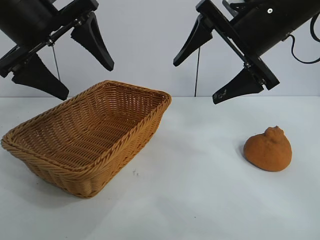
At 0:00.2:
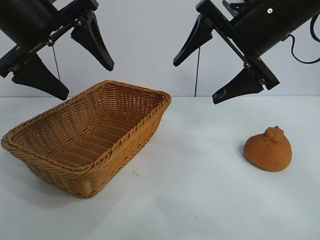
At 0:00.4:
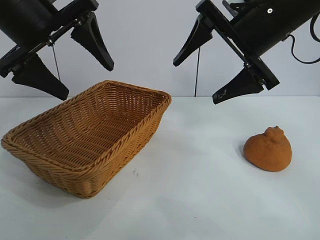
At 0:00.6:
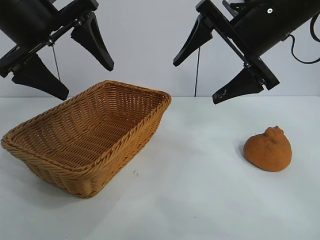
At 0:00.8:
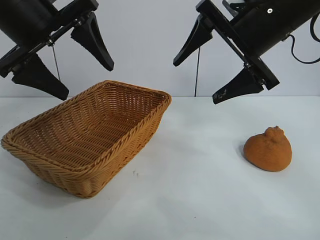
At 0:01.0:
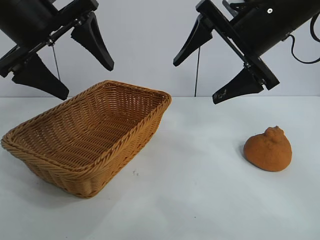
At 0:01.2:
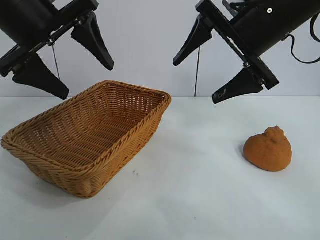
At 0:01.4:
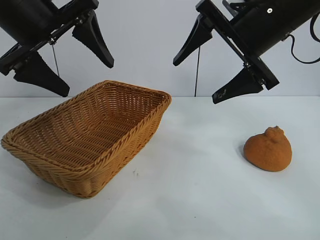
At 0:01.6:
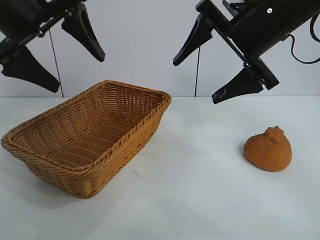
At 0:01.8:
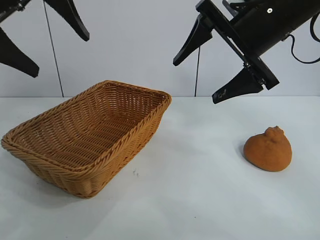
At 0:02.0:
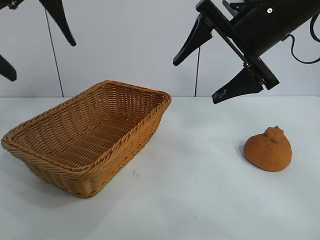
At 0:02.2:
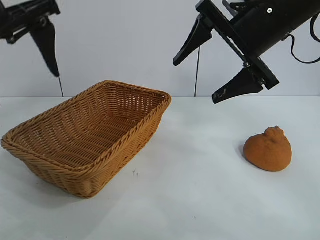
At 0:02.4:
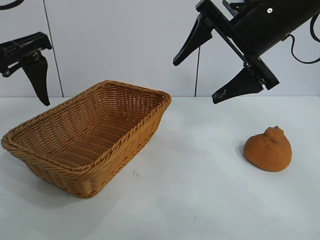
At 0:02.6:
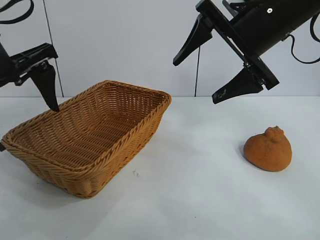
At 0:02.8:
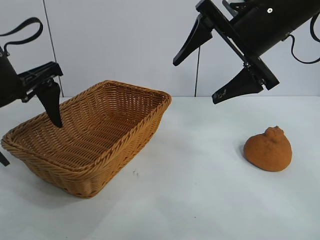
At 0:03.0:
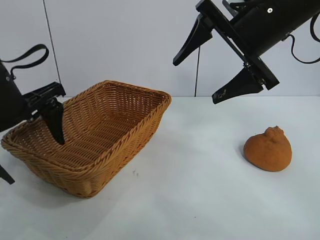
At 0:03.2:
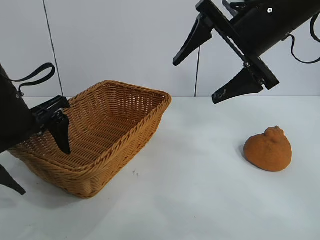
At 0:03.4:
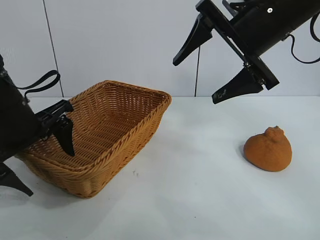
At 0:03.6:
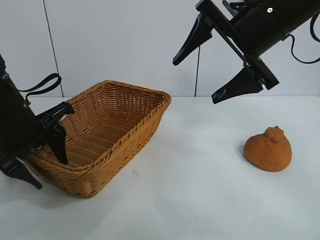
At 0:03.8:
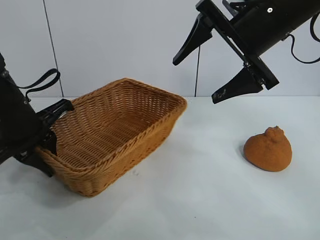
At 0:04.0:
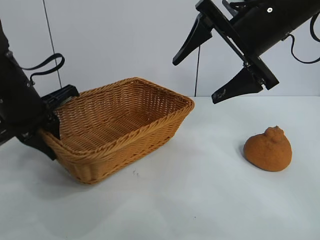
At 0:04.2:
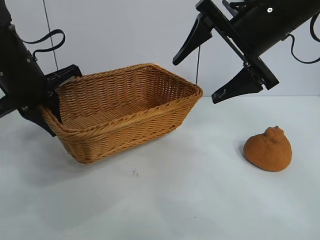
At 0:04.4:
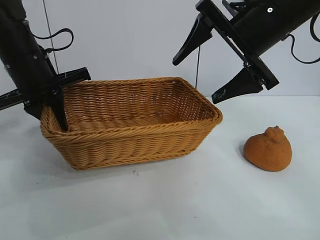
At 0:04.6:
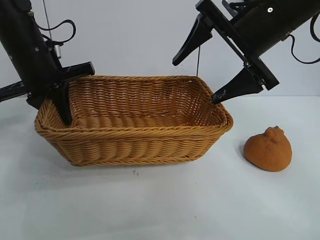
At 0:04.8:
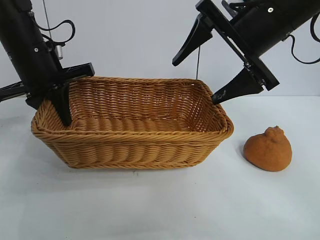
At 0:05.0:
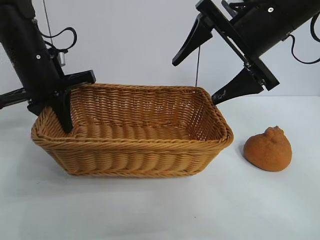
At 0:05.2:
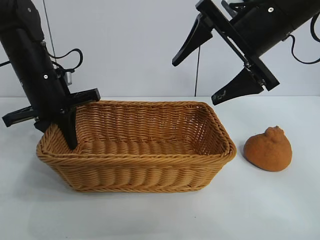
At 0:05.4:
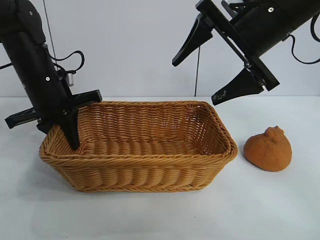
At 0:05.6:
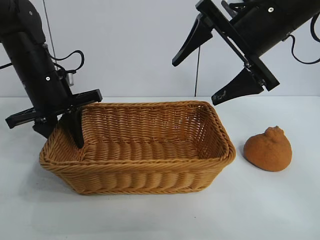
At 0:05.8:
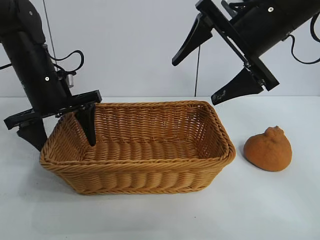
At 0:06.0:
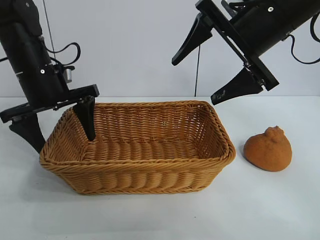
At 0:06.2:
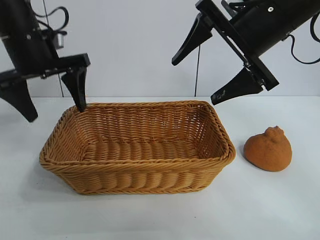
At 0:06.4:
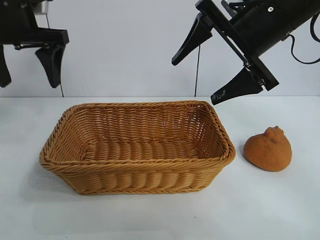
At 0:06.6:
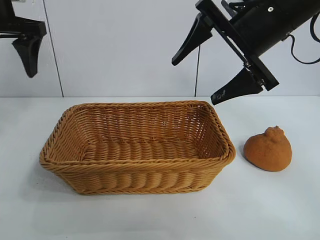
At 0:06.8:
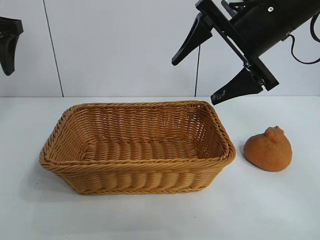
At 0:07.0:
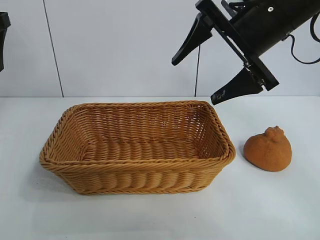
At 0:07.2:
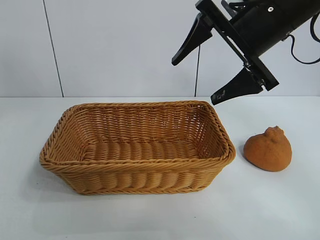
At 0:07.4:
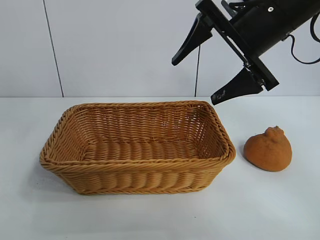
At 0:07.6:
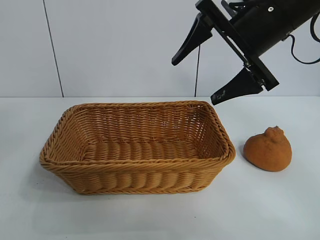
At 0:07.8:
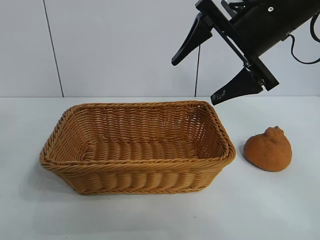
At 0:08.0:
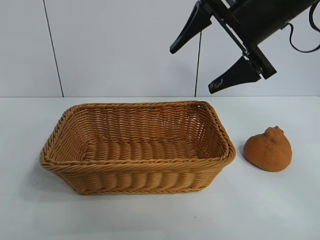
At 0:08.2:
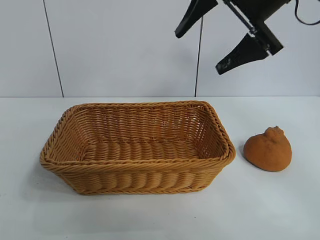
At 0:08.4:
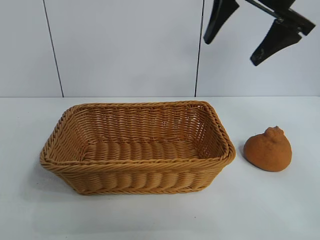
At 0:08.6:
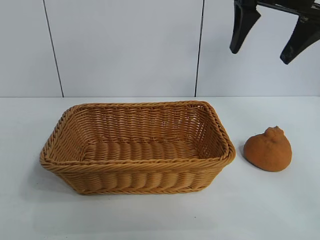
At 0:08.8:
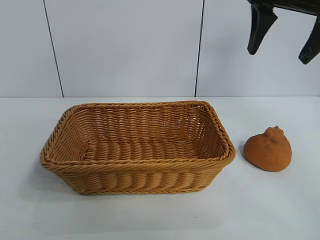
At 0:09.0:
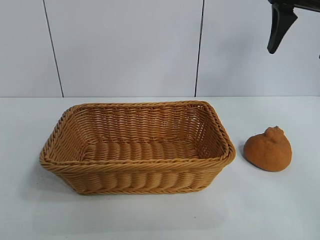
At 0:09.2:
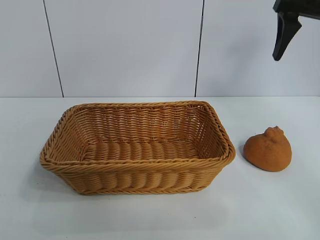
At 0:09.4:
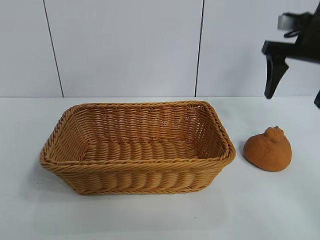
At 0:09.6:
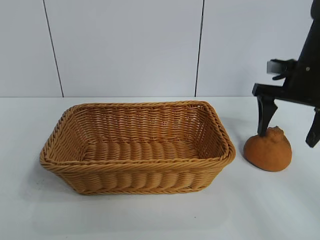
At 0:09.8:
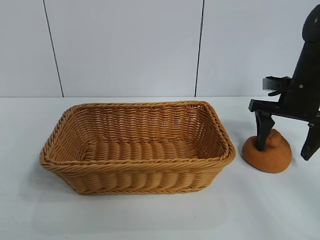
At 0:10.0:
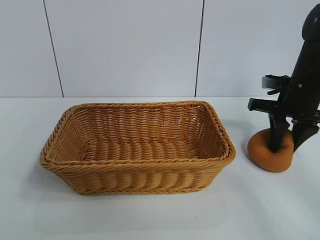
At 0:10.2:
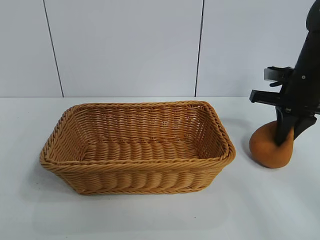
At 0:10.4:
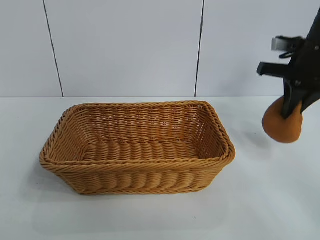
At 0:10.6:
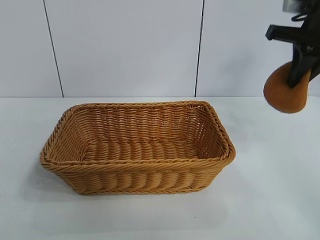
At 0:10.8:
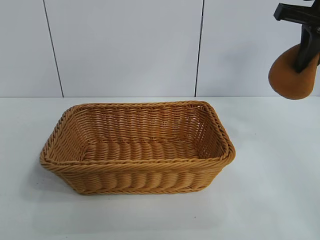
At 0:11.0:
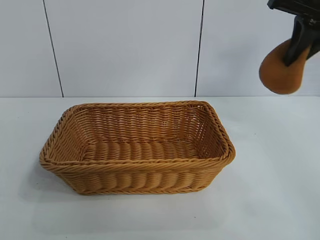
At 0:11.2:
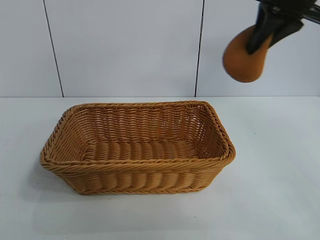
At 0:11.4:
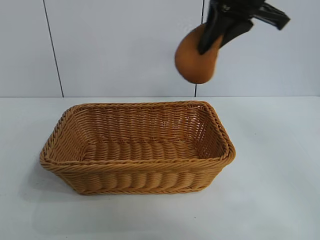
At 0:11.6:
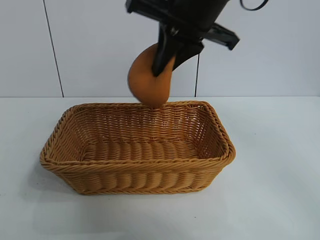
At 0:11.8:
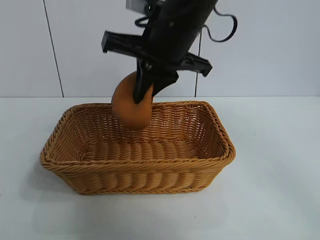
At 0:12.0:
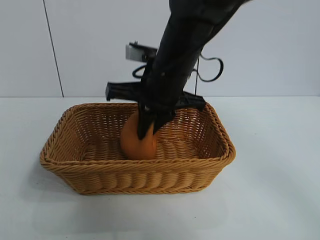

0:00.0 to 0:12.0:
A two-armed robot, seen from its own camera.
Task of the whole recording: pick up the orange and put it into the basket.
Step, 0:00.8 to 0:03.6: Grasp the basket with left gripper.
Step, 0:03.8 to 0:05.6: Place the basket in the center of view with left gripper.
Step, 0:06.0 to 0:10.0: Grasp the orange with right gripper.

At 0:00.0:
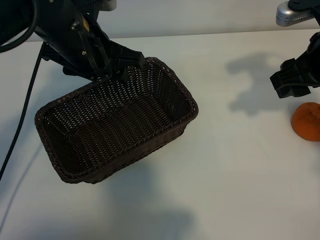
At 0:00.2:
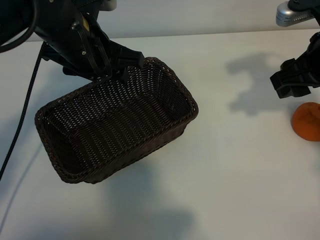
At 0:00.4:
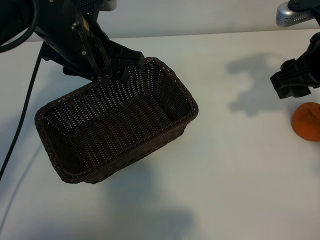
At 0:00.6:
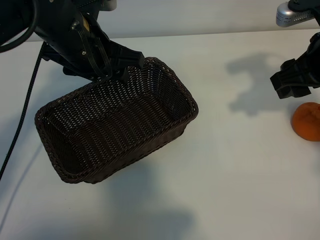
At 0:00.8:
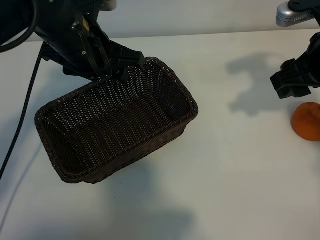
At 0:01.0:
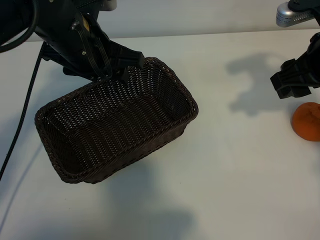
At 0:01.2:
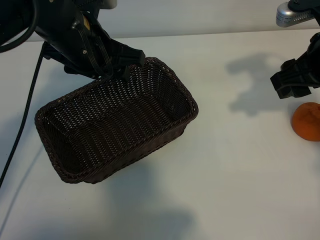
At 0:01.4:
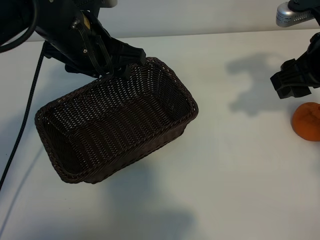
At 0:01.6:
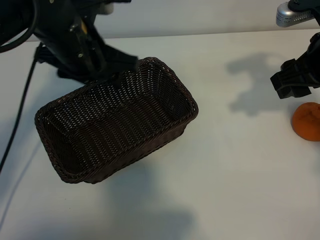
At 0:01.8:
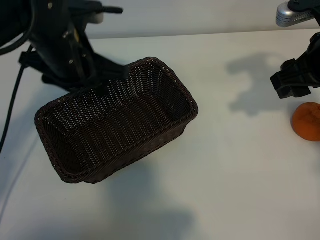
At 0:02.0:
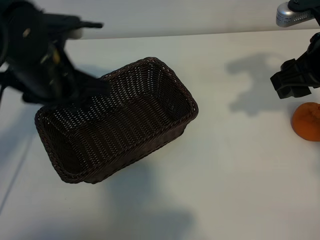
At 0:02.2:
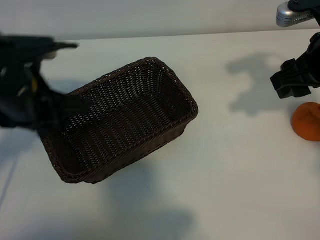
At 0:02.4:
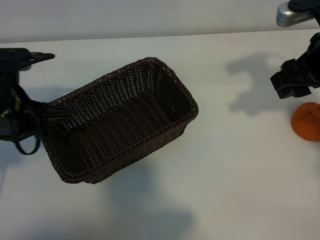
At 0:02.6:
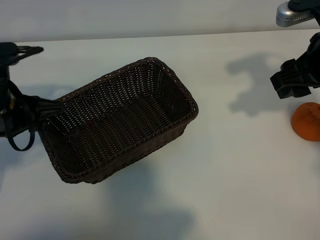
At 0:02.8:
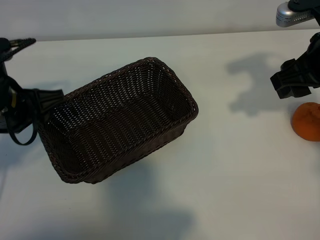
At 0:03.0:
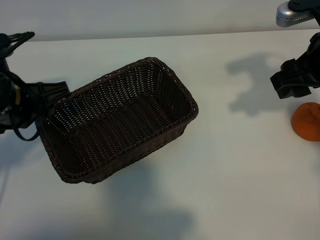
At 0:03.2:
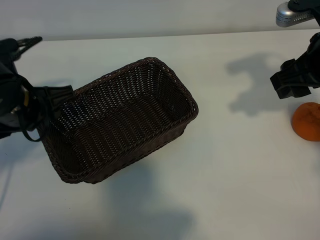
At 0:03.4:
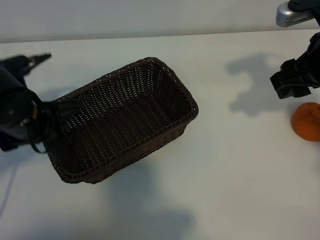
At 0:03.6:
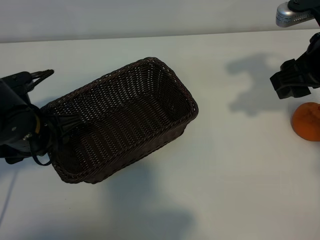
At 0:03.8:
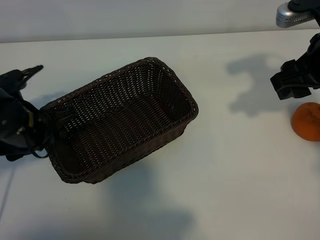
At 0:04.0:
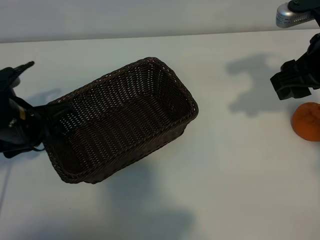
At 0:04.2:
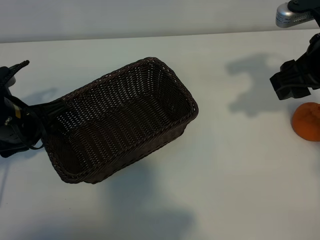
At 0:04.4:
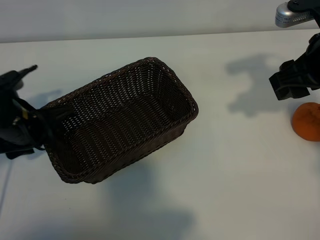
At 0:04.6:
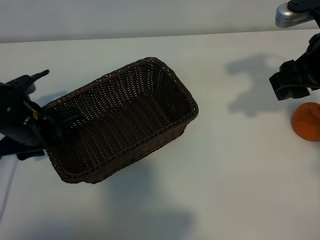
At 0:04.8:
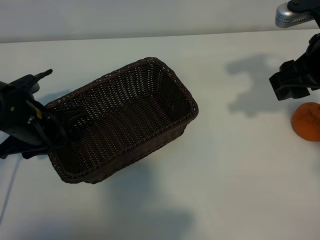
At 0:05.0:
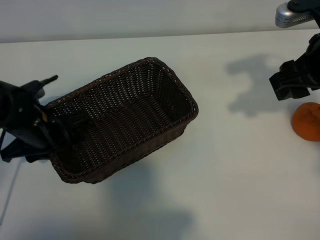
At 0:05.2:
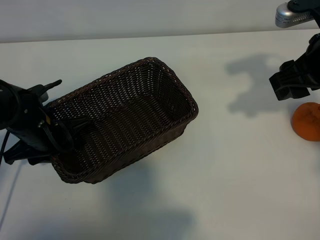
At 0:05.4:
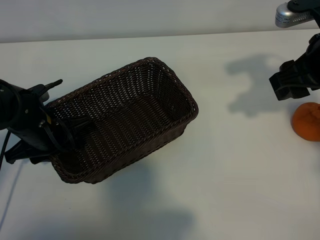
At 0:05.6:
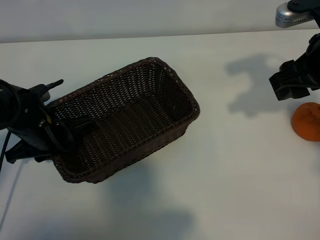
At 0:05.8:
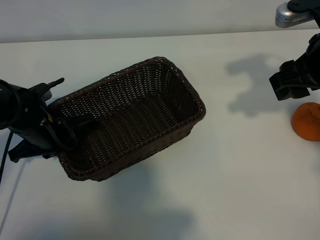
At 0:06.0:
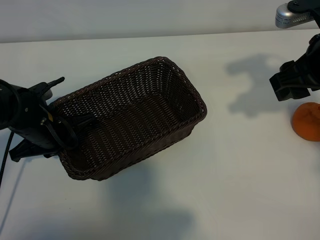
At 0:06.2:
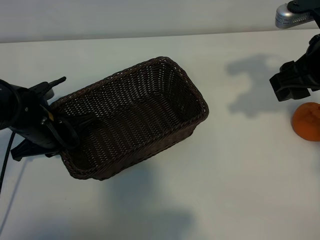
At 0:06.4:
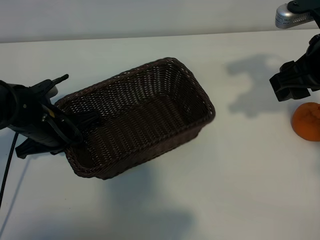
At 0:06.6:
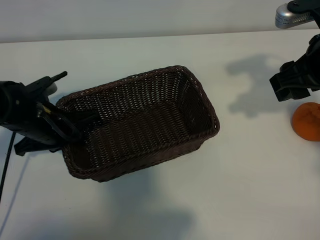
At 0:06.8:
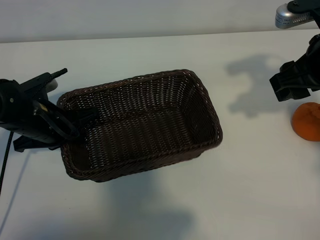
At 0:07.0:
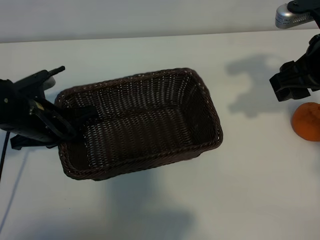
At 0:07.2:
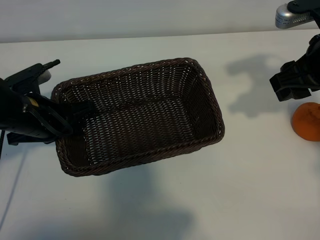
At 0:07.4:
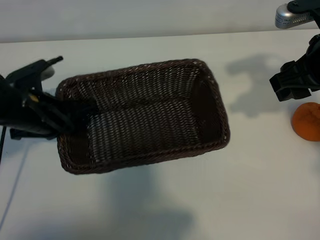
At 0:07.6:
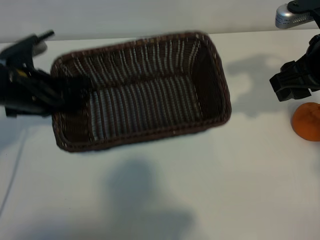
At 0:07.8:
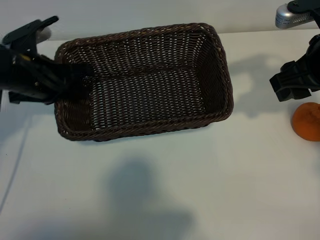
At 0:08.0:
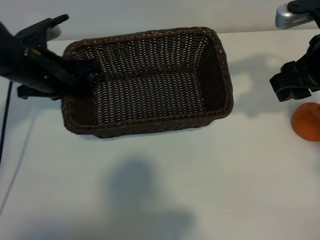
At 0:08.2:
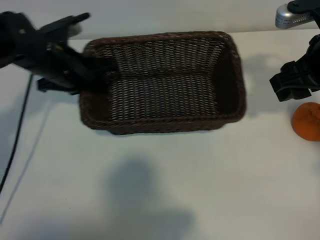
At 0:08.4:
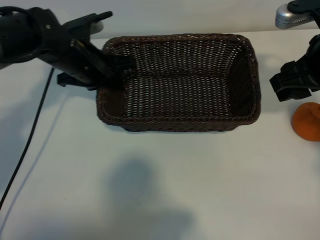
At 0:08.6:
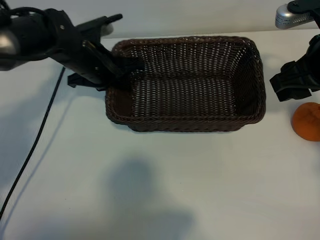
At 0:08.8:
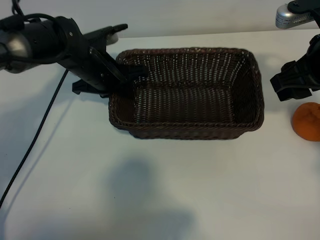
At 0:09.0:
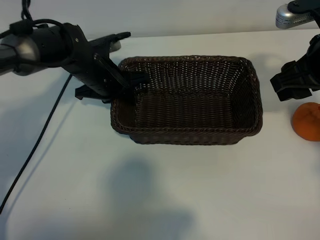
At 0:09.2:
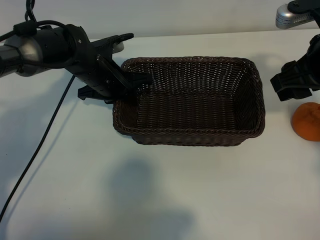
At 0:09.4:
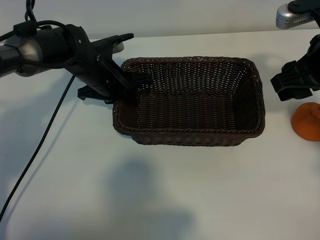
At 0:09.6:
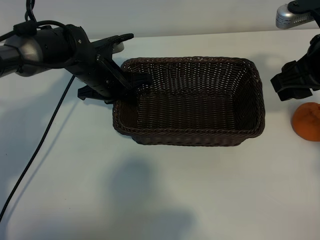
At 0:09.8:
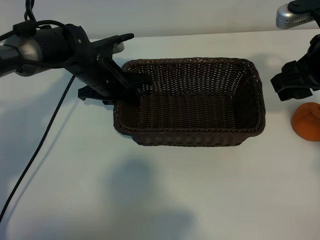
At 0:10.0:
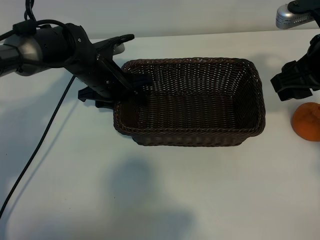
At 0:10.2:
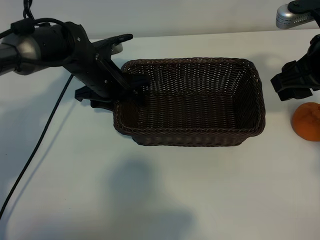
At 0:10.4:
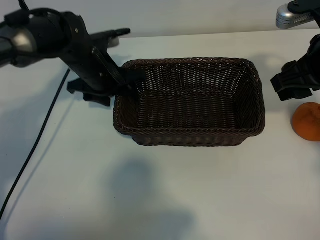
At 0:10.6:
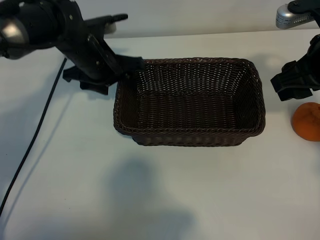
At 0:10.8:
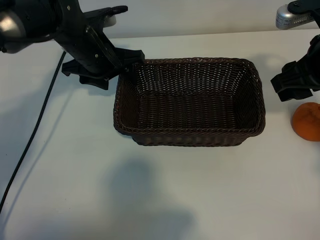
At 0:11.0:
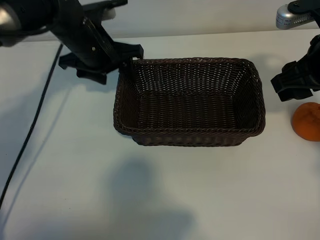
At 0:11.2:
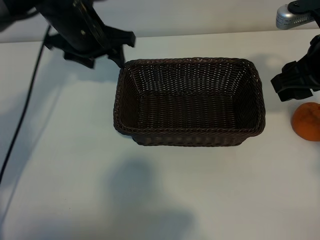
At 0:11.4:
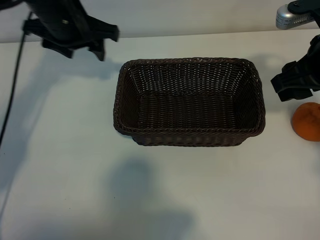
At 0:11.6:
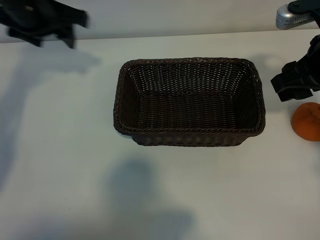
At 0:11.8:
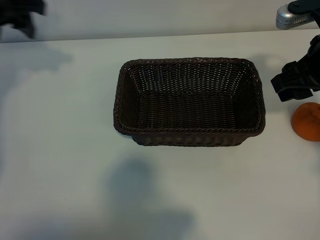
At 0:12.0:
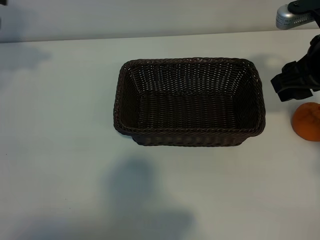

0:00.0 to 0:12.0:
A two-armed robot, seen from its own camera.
Task of the whole recording: pick up the orange and put it into the basket.
Step, 0:01.2 to 0:05.8: Grasp the basket with left gripper.
Step, 0:06.0 to 0:09.6: Place the basket in the center of view with left gripper.
